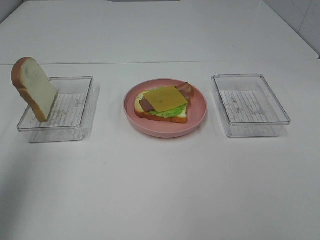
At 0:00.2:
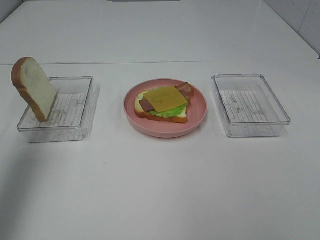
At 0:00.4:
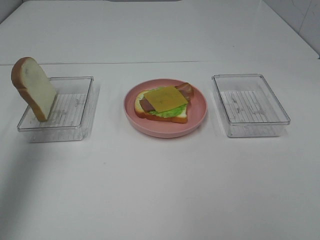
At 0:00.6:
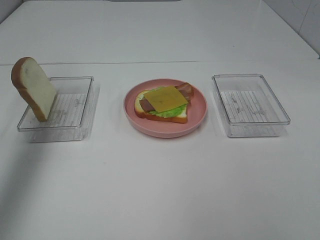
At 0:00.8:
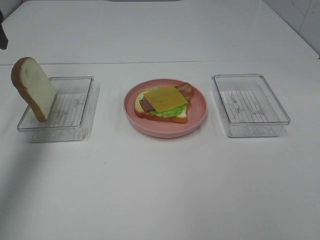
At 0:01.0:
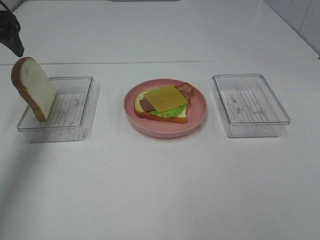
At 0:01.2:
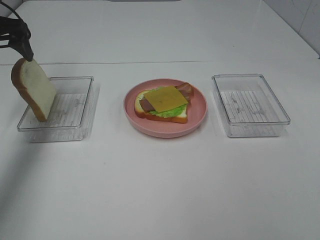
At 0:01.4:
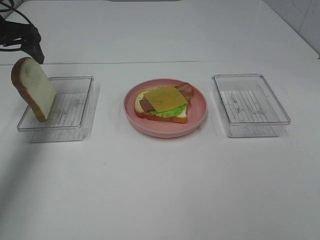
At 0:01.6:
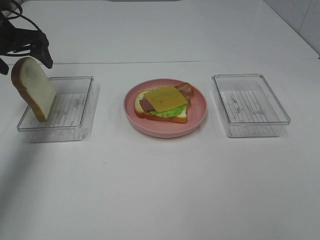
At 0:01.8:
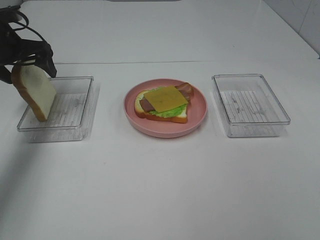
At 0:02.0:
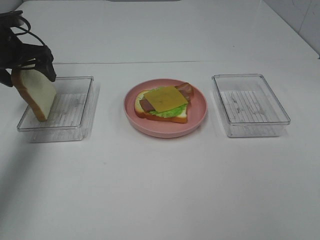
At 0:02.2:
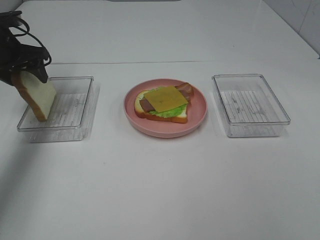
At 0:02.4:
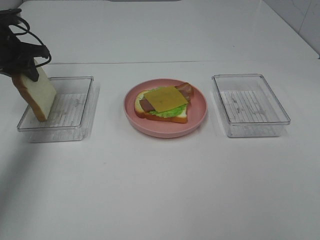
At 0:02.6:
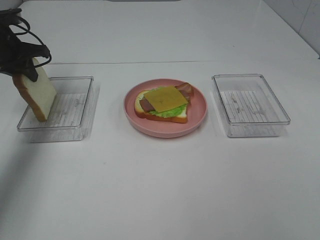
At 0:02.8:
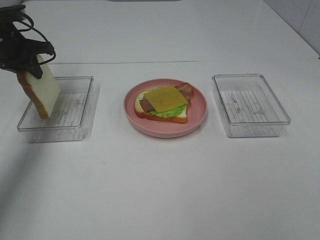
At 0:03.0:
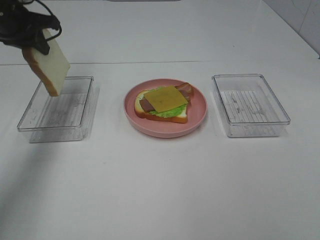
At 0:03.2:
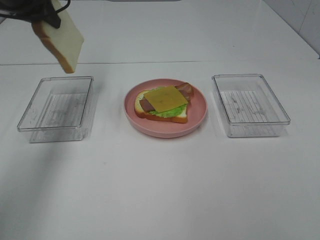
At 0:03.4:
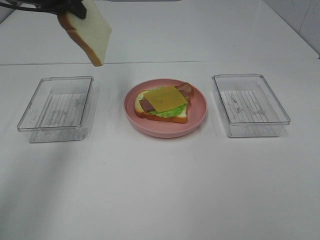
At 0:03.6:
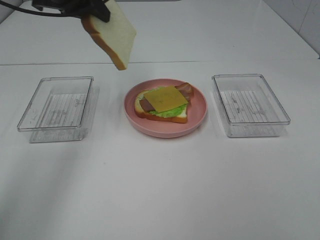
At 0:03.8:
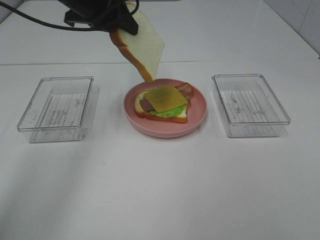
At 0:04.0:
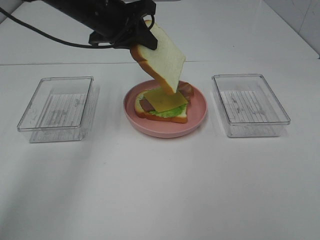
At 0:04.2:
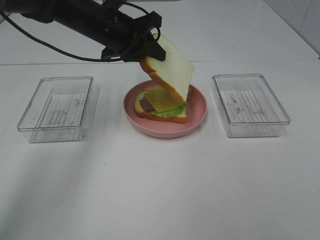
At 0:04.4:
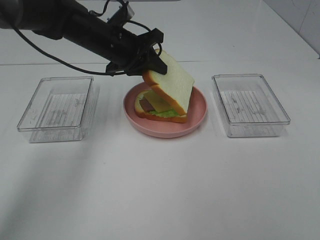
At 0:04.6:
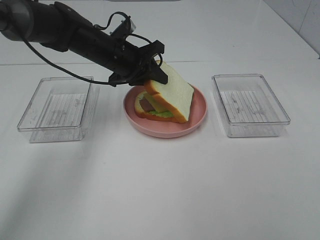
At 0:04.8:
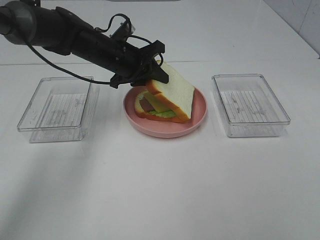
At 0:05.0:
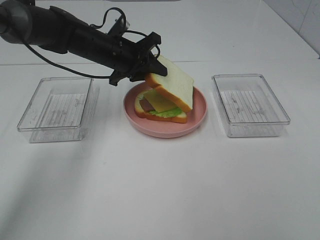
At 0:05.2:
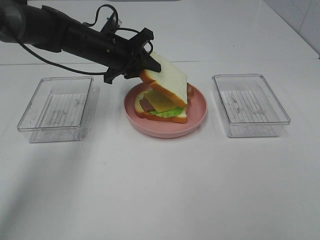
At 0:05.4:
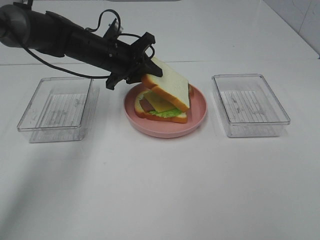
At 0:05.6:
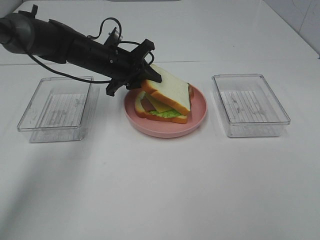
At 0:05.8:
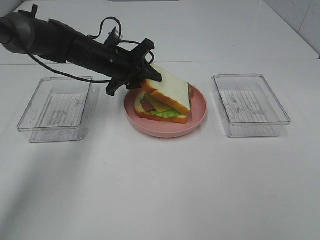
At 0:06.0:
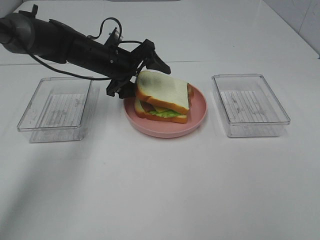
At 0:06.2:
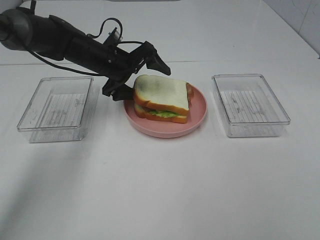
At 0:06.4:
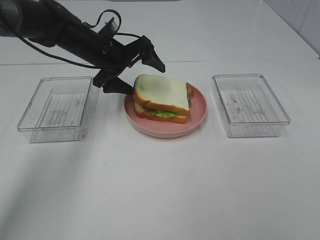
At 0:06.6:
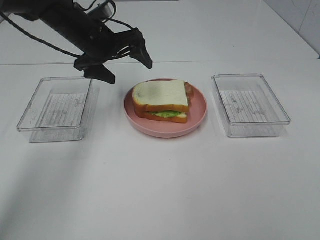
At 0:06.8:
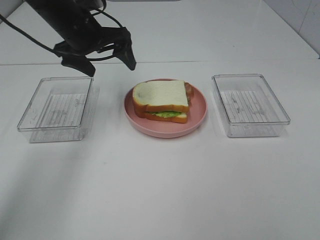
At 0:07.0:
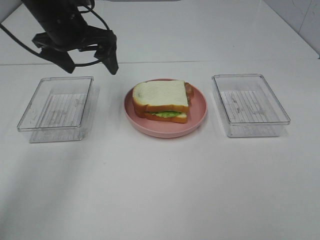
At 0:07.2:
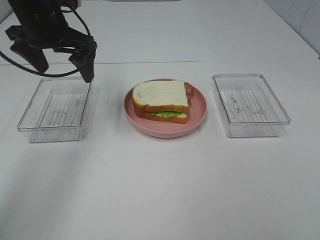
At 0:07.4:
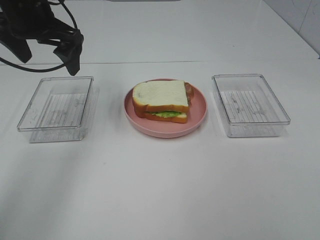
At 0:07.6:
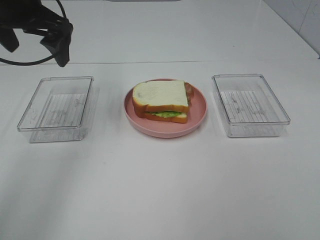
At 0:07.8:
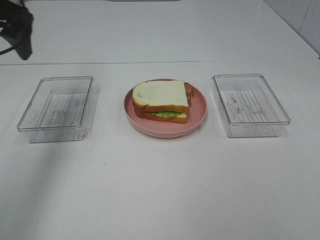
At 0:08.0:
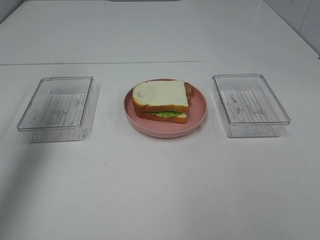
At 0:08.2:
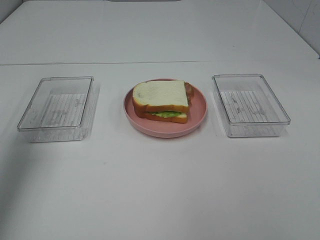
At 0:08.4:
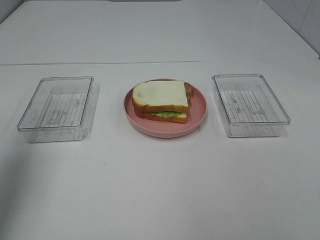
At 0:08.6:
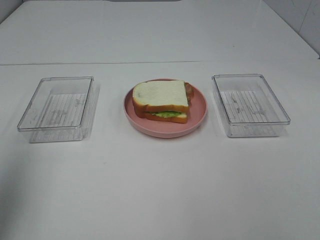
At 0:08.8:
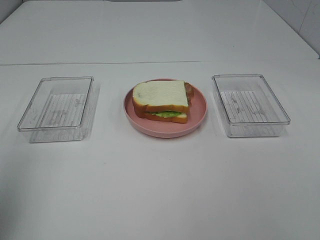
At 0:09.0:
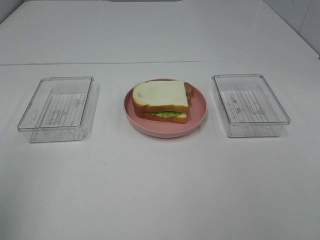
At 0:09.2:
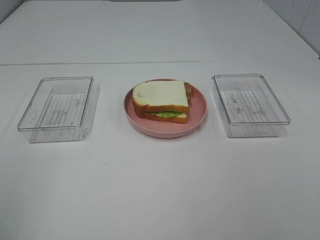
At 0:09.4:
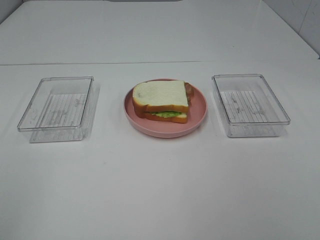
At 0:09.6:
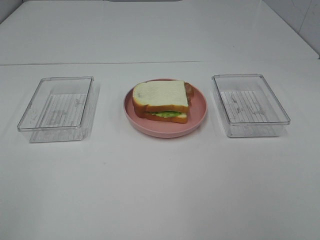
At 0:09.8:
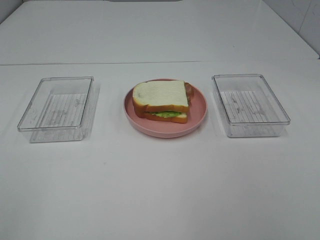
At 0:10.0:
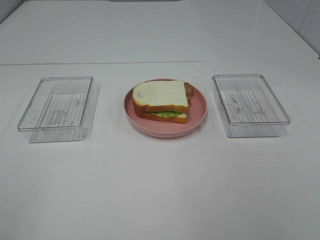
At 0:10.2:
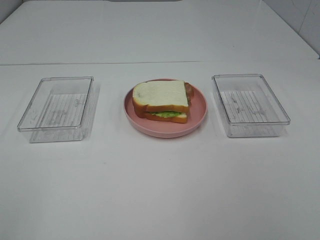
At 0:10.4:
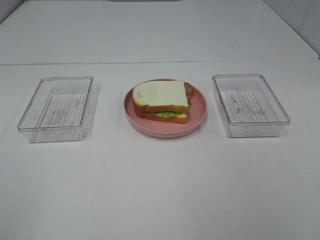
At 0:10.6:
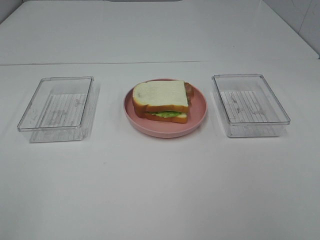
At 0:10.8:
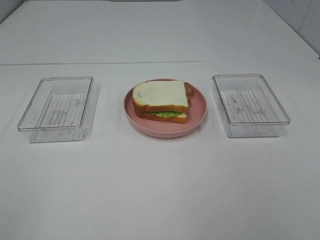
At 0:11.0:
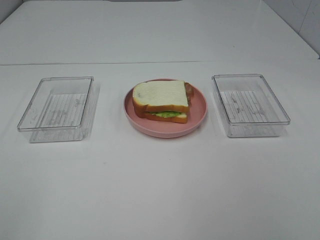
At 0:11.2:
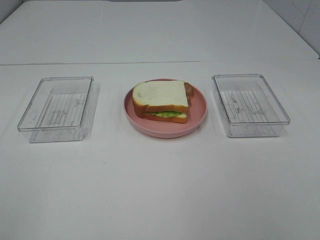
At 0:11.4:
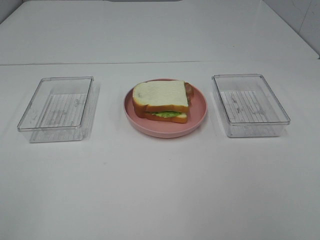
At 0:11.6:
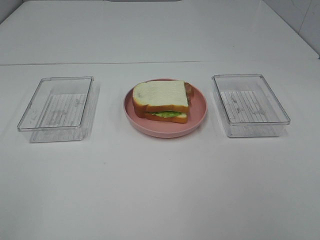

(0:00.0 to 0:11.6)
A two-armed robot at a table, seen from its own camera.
Task of the whole recording: Make sandwiches.
Step, 0:00.0 - 0:02.6: Left hand:grab the bread slice.
Step, 0:02.8 - 0:06.4: Left hand:place the bread slice on the cheese slice.
0:00.0 - 0:01.4: The left gripper goes about 30 cm forward and downward.
0:01.4 - 0:02.8: The left gripper closes up.
0:02.8 - 0:04.4: The left gripper goes roughly 20 cm to the right.
0:04.4 - 0:05.8: The left gripper changes place by about 5 cm.
0:05.8 - 0:07.2: The left gripper goes about 15 cm upward, to the left and backward, and opens up.
0:07.2 - 0:08.8: The left gripper heads backward and to the left, covering roughly 30 cm.
0:08.8 - 0:10.2: The left gripper heads backward, covering approximately 15 cm.
0:10.2 - 0:11.6: The two grippers keep their place.

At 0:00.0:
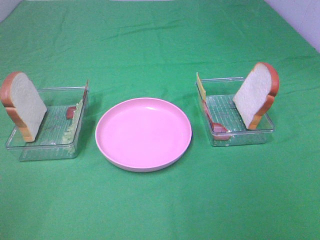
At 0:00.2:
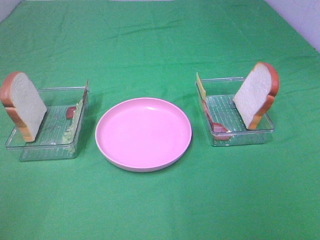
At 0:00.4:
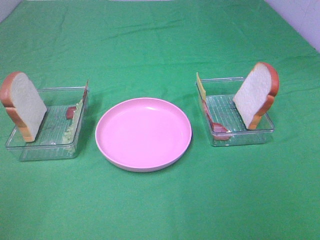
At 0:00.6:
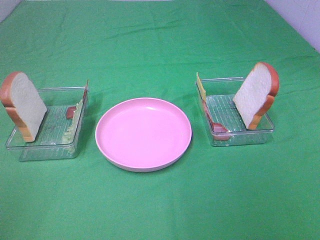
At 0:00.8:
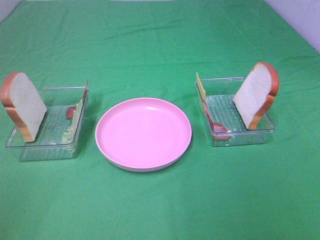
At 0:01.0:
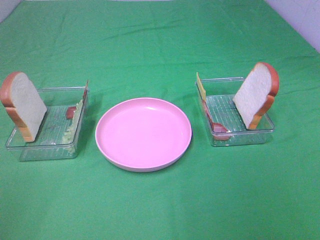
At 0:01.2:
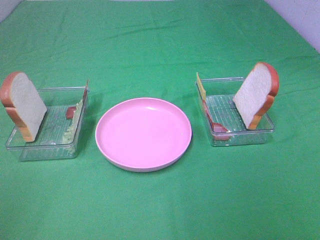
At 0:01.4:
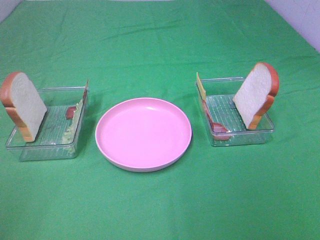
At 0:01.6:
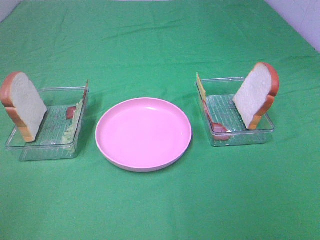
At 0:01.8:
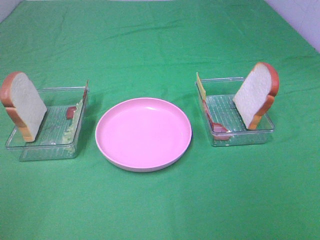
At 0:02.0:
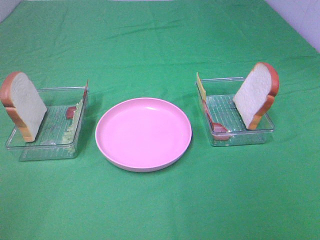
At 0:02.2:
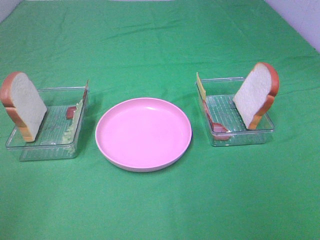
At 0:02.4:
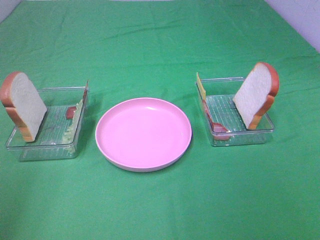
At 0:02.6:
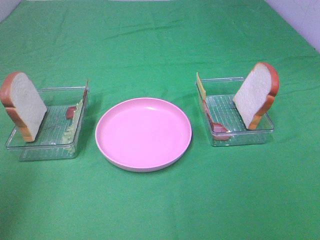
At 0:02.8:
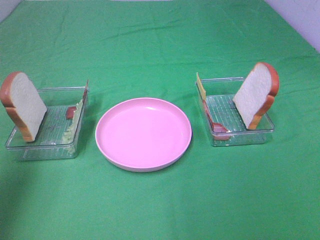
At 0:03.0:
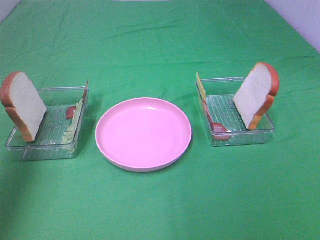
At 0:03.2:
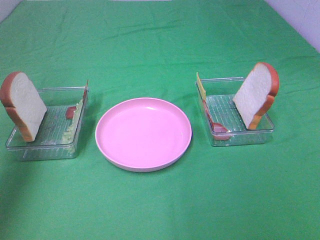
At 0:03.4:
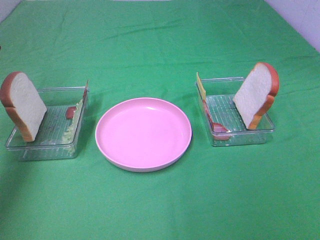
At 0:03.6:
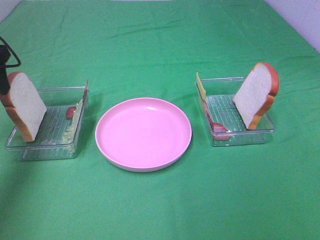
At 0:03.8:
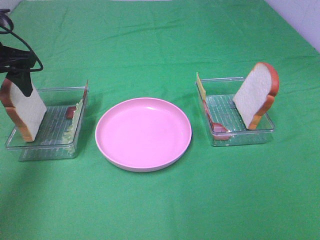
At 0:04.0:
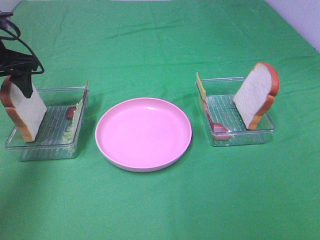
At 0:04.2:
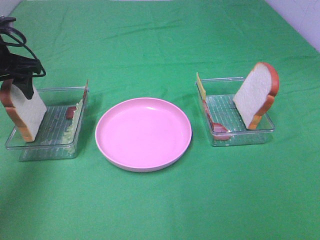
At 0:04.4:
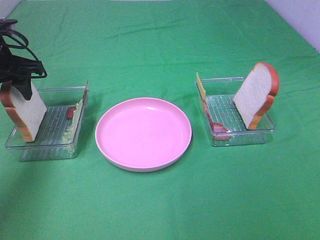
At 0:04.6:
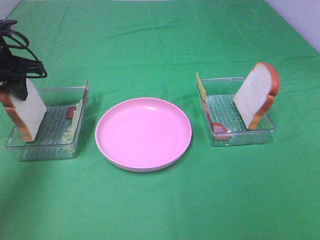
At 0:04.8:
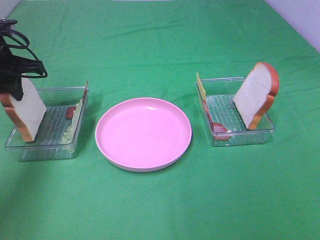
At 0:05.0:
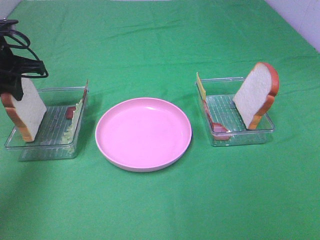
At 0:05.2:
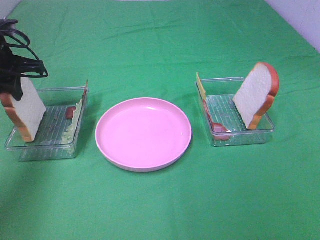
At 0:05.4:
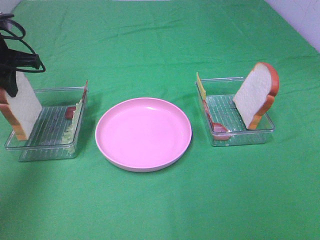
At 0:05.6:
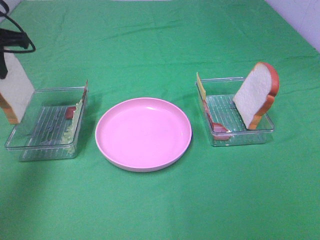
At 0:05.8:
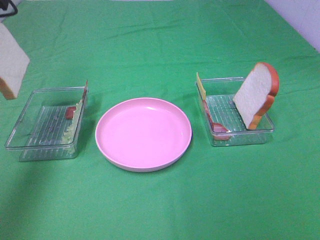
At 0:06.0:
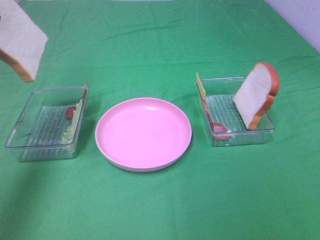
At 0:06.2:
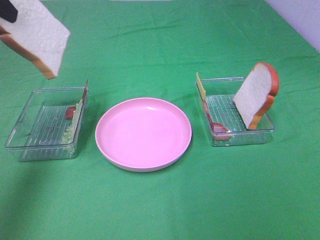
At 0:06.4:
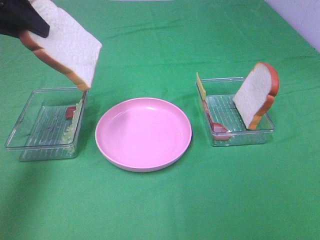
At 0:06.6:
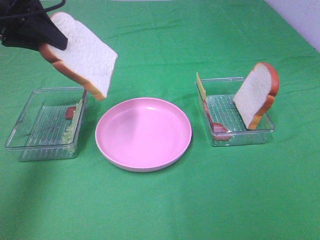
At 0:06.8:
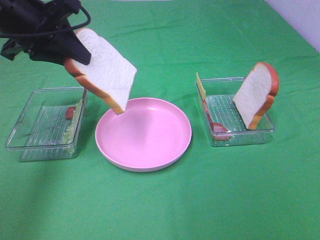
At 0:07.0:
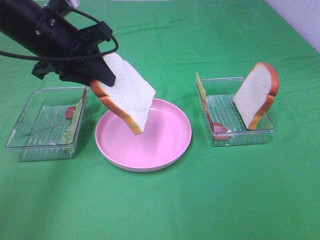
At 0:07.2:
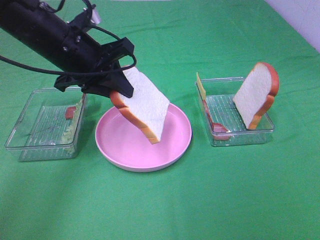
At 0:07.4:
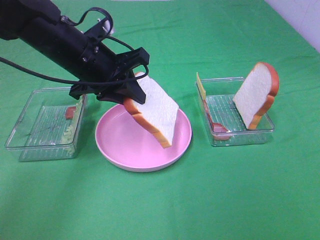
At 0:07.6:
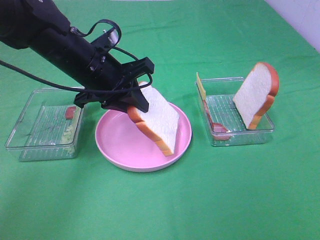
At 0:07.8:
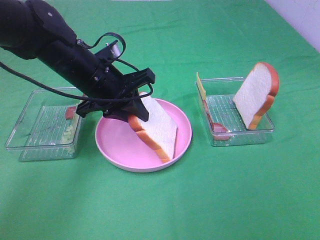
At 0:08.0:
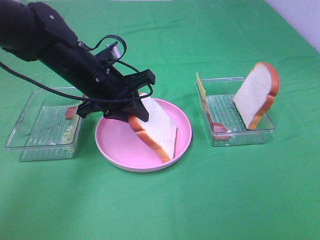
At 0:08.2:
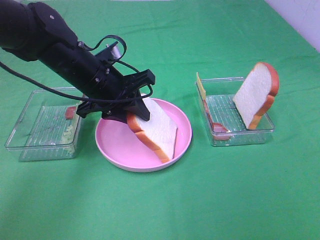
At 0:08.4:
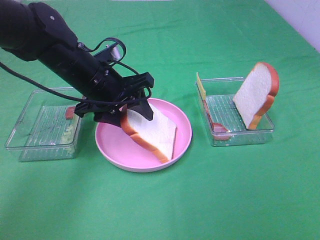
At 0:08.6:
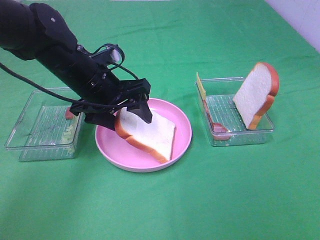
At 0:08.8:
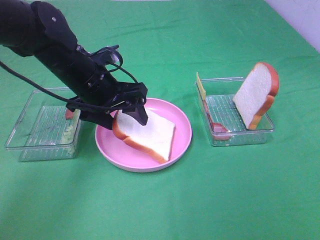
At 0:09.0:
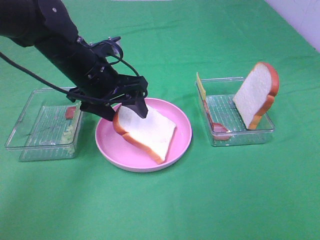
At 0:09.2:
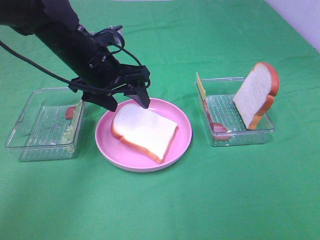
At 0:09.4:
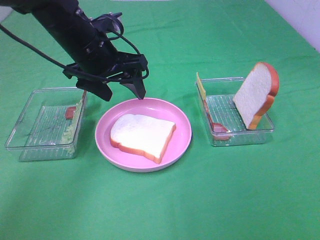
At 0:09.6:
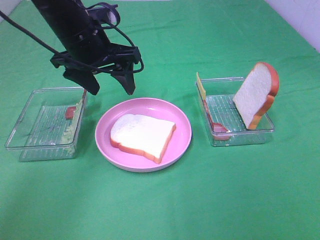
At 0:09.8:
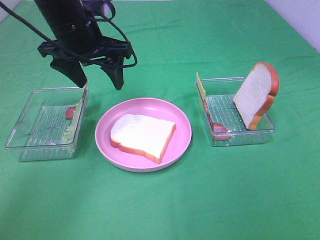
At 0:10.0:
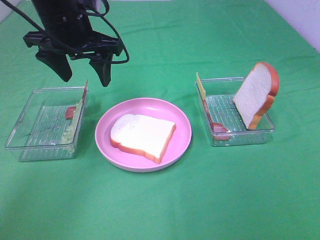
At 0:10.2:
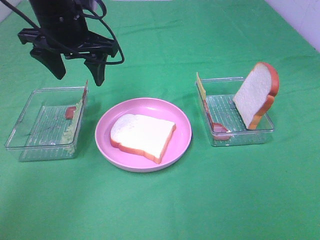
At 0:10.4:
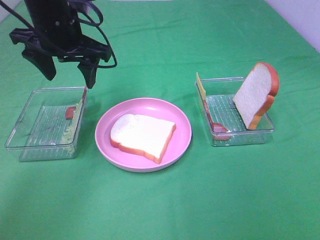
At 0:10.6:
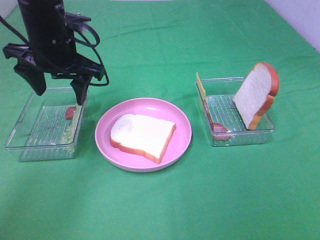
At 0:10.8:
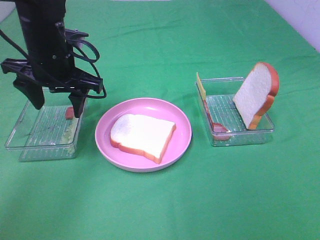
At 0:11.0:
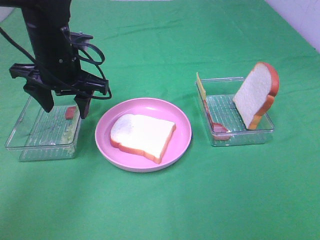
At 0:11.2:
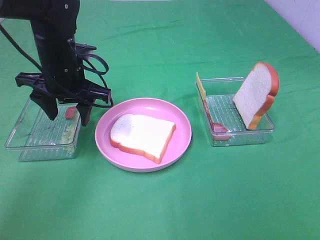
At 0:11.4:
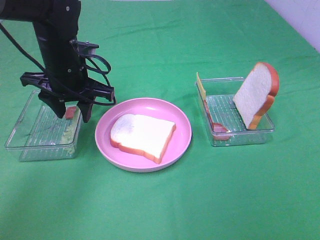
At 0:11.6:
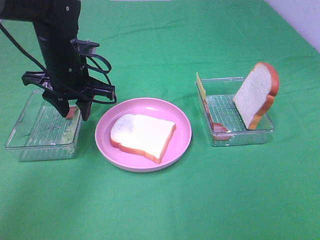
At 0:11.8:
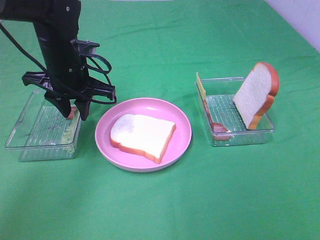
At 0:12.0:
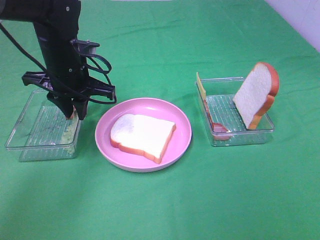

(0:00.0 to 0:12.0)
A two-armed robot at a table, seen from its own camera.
Task of the whole recording: Make sandwiches.
Step, 0:00.0 - 0:05.0: Left hand:grab the bread slice.
Step, 0:05.2 - 0:09.4: Left hand:place the bread slice on the plate.
0:00.0 - 0:01.6: The two grippers keep their place.
0:01.6 - 0:03.0: The left gripper heads forward, covering roughly 25 cm.
0:03.0 - 0:04.4: The left gripper moves downward and forward, roughly 20 cm.
0:04.4 - 0:06.0: The left gripper is displaced upward and backward by roughly 15 cm, and closes up.
0:06.0 - 0:07.6: The left gripper heads downward and to the right, covering about 25 cm.
0:07.6 - 0:09.0: The left gripper opens.
0:09.0 - 0:10.4: The left gripper shifts about 5 cm upward.
0:10.4 - 0:12.0: The left gripper travels downward by approximately 5 cm, and closes its fingers.
